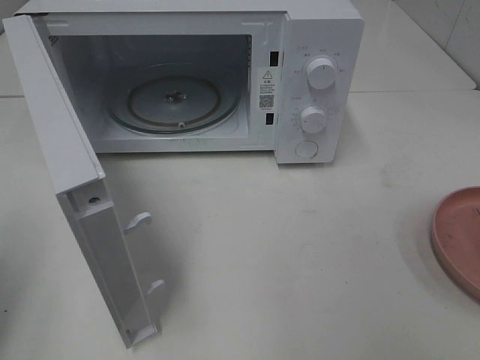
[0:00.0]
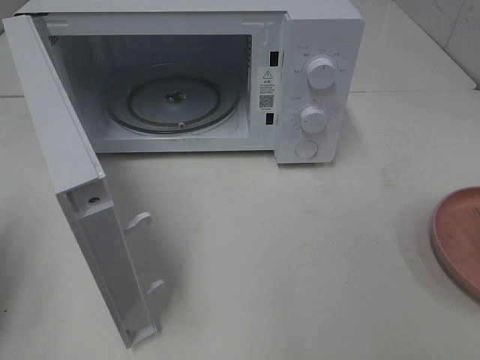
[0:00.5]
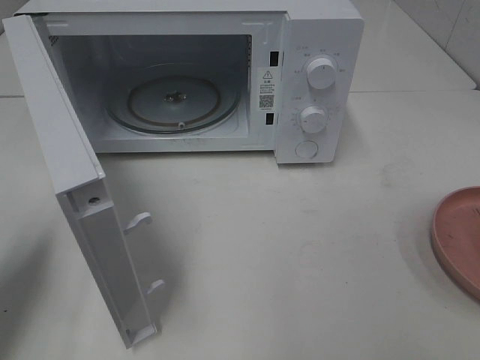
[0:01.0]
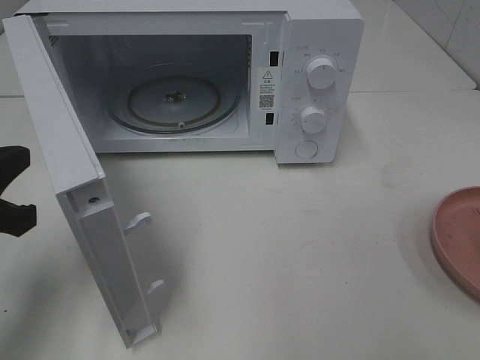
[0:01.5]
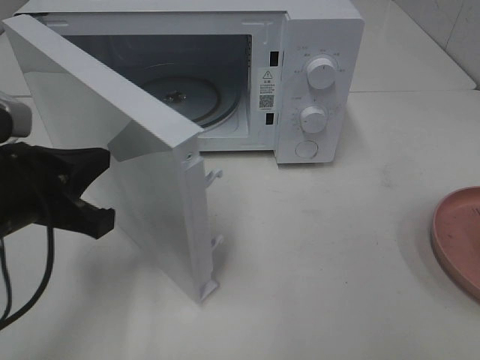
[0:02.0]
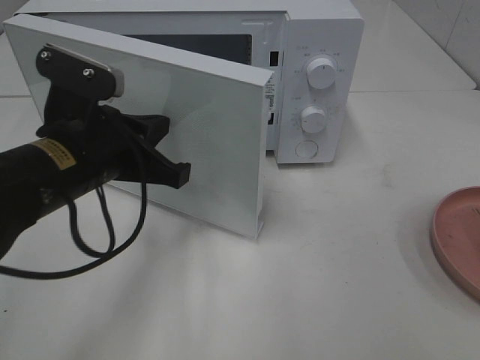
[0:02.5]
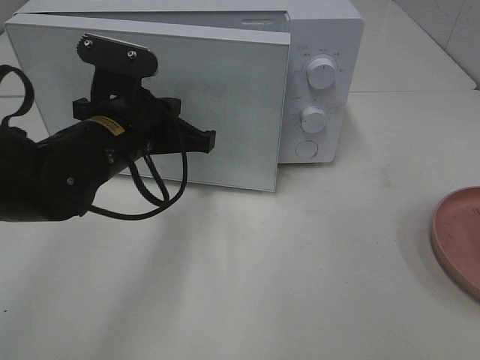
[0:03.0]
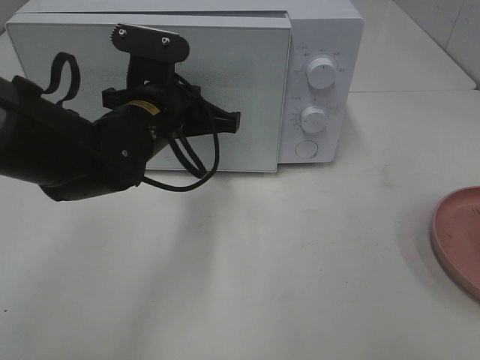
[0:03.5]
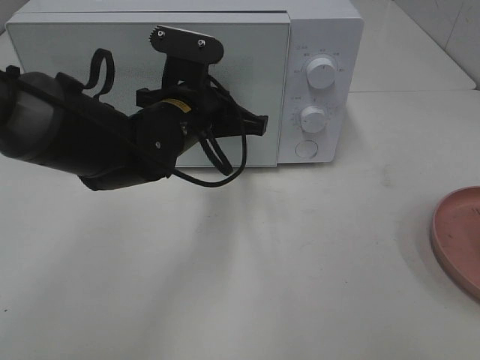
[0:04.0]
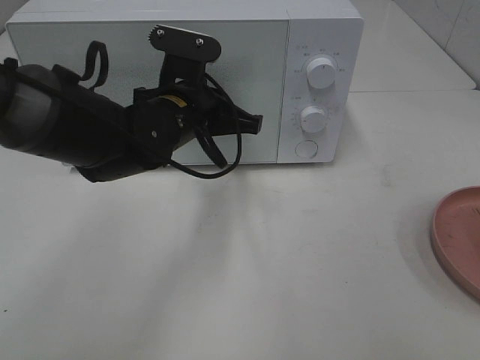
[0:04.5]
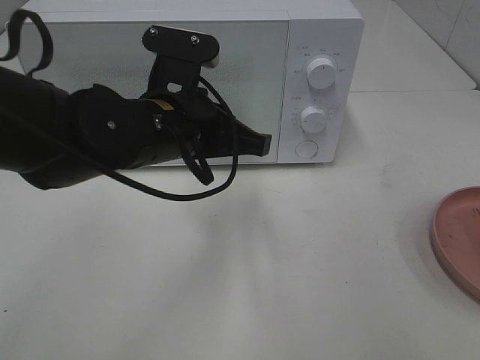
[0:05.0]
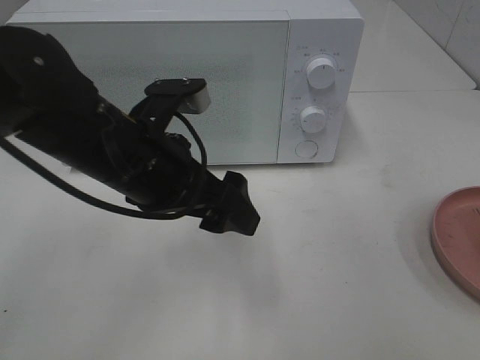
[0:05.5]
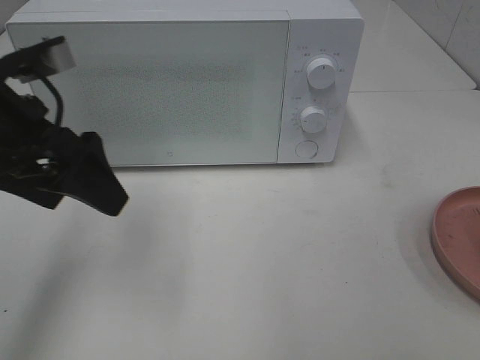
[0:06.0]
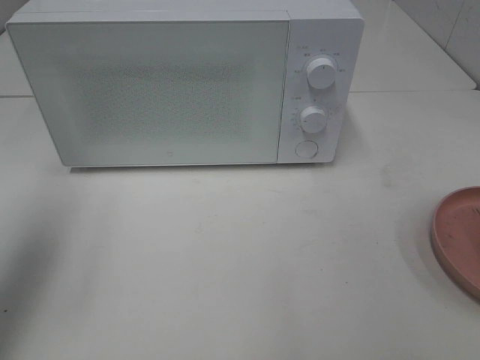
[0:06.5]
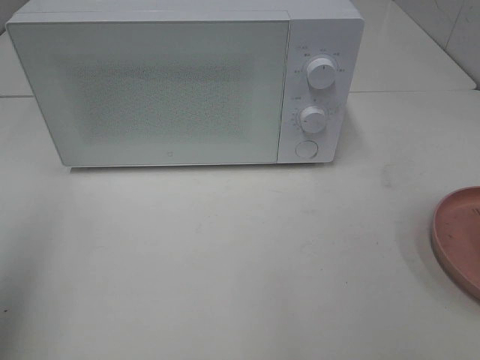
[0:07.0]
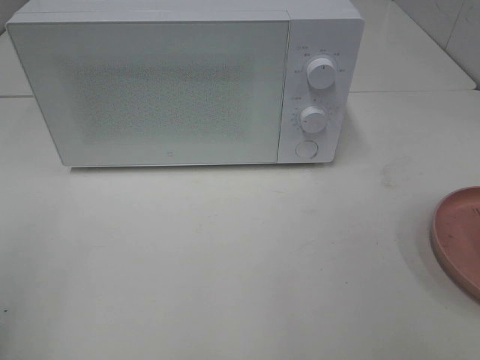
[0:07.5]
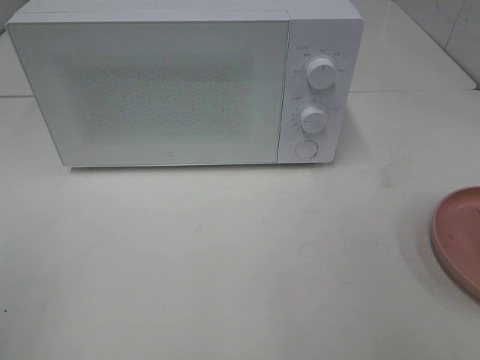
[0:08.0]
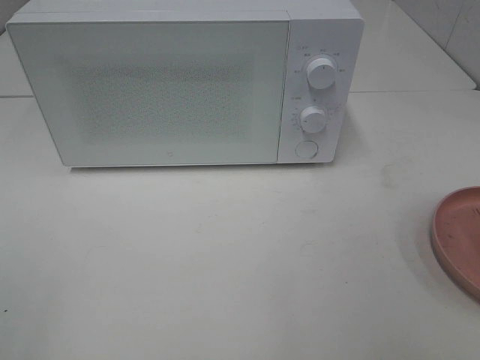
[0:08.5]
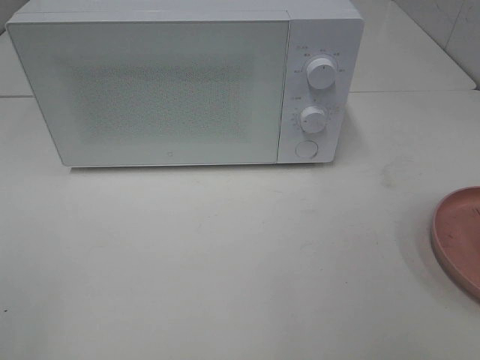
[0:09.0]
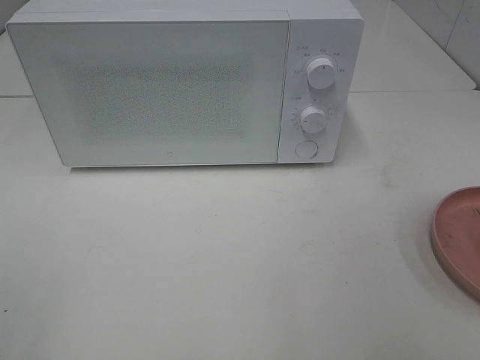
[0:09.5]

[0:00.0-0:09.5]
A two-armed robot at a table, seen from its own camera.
Task of the whole recording: Heat the burger.
Step, 0.0 to 5.0 s: Left hand: close the microwave door.
0.0 to 2.0 s: The left gripper goes roughly 15 cm to the right, forward and downward.
2.0 to 4.0 s: The left gripper travels to the right and forward by approximately 20 cm.
4.0 to 5.5 s: The left gripper moves backward, approximately 10 cm, and opens up.
5.5 to 7.5 s: The left gripper goes roughly 30 cm to the left and backward.

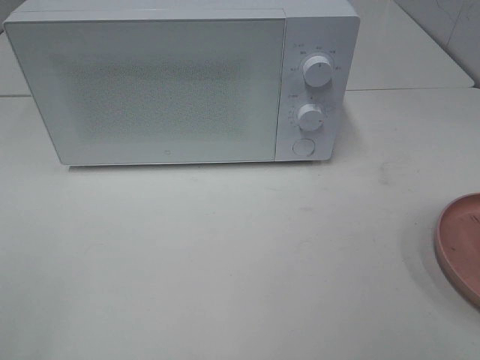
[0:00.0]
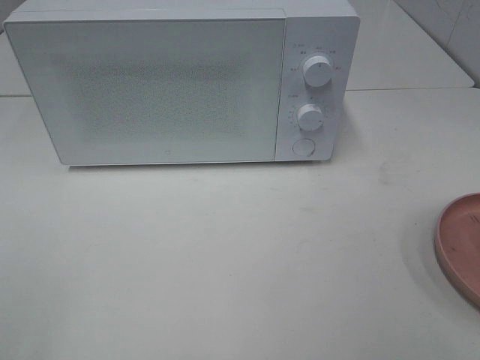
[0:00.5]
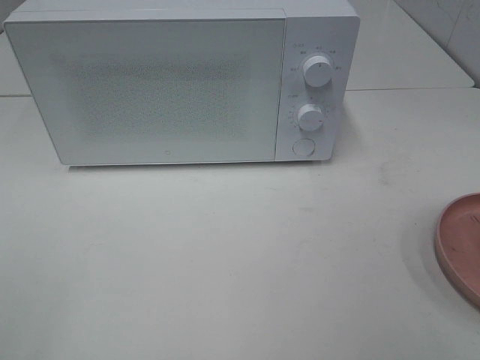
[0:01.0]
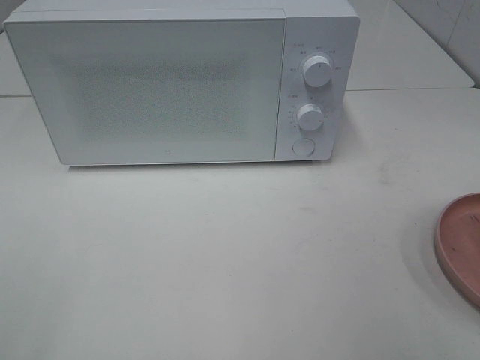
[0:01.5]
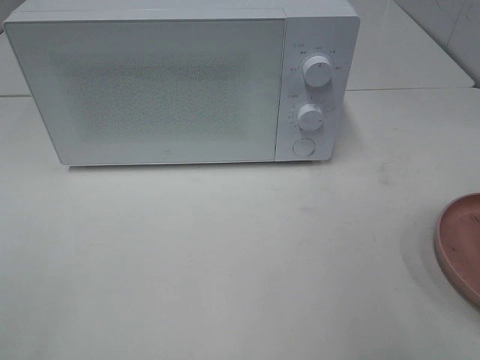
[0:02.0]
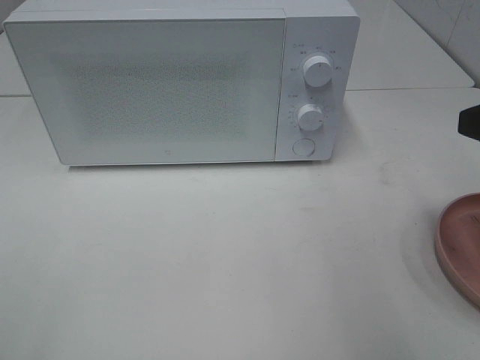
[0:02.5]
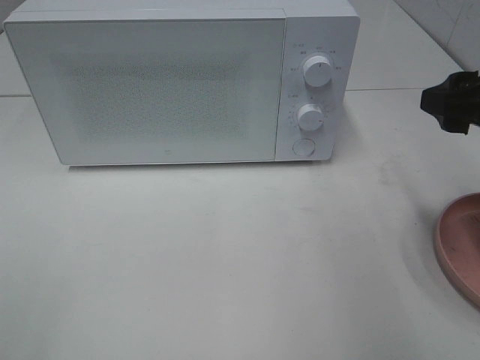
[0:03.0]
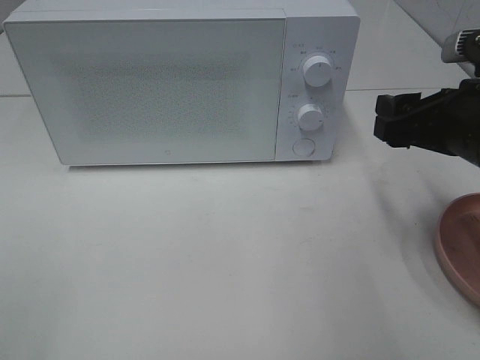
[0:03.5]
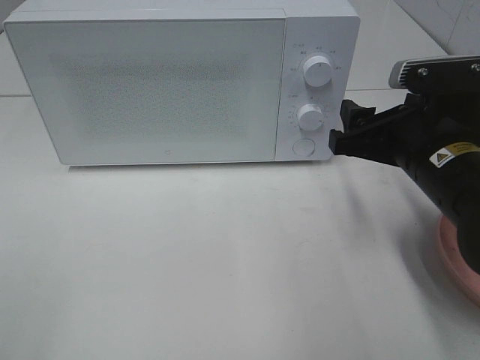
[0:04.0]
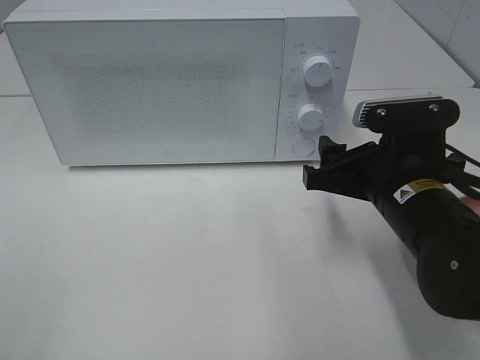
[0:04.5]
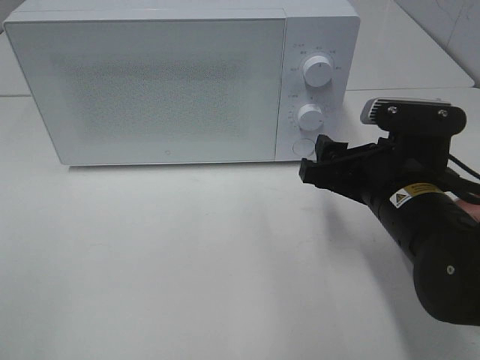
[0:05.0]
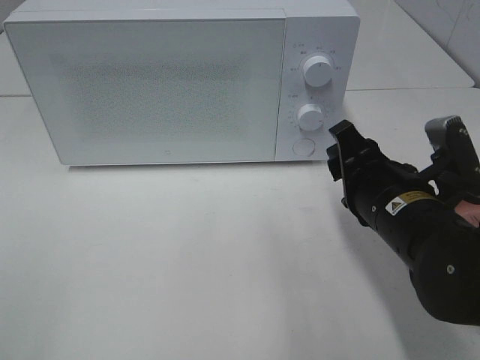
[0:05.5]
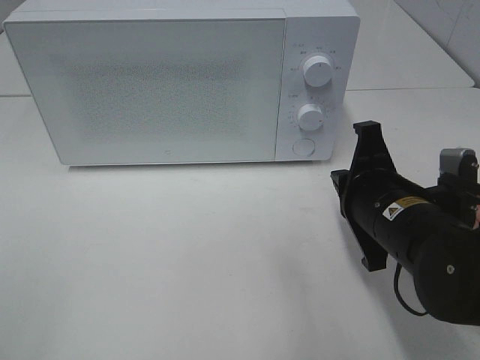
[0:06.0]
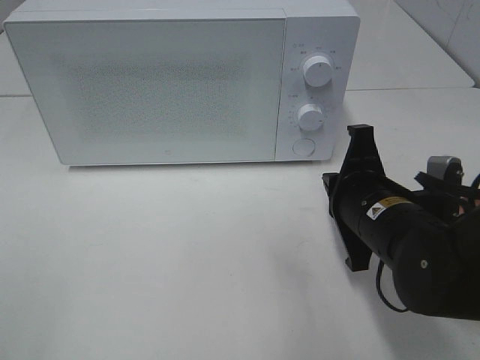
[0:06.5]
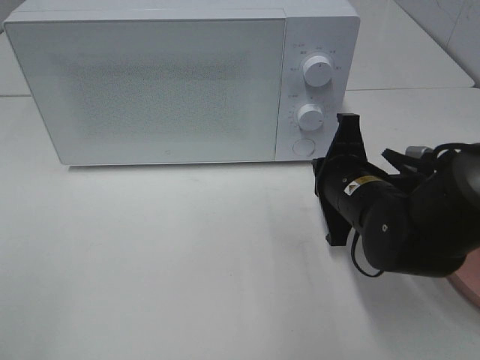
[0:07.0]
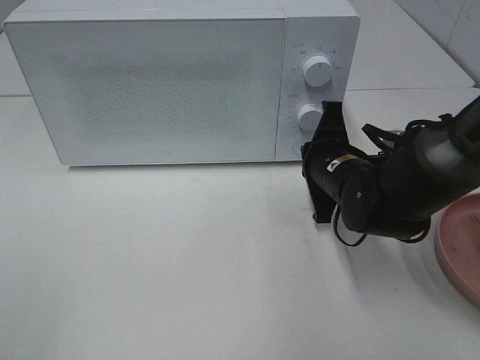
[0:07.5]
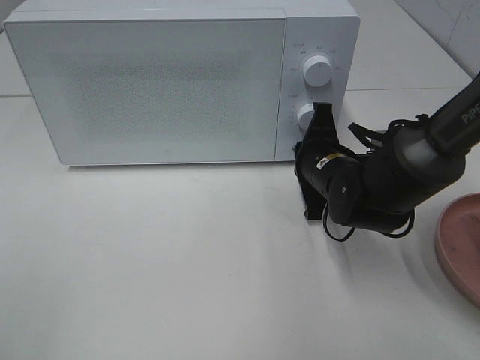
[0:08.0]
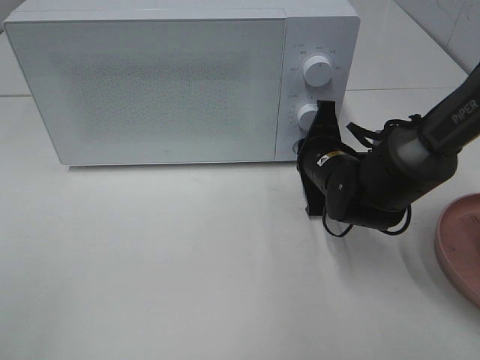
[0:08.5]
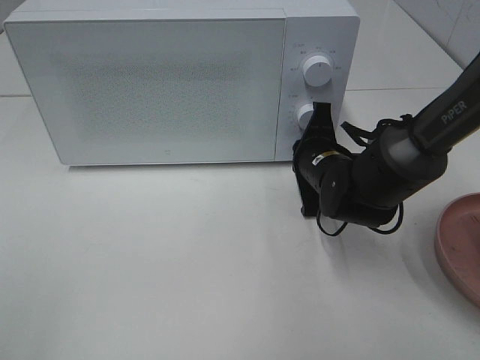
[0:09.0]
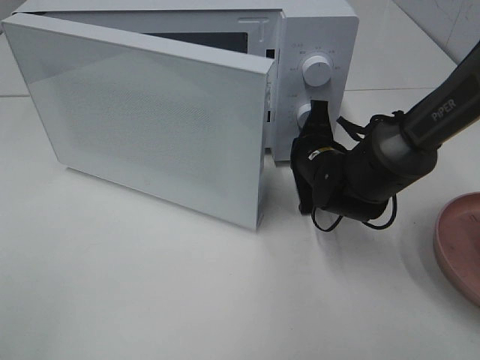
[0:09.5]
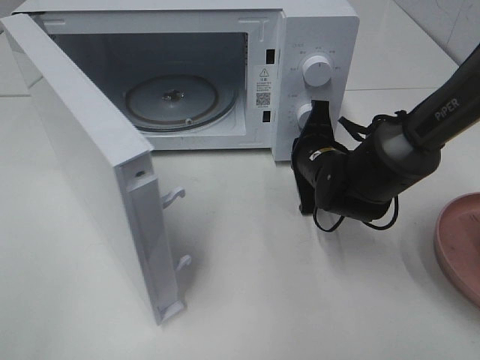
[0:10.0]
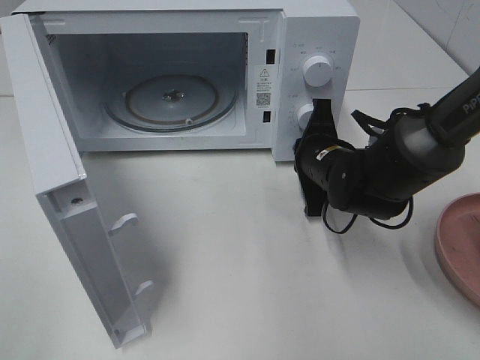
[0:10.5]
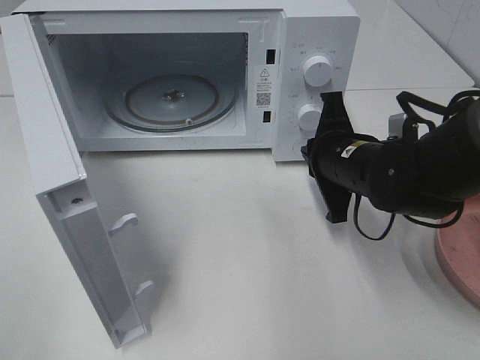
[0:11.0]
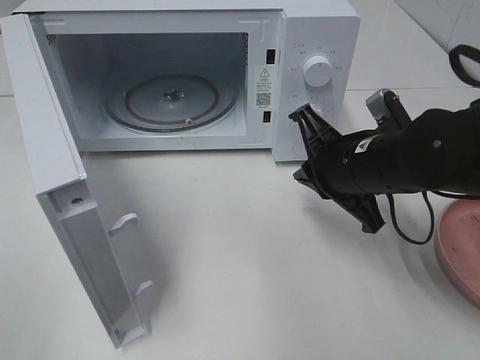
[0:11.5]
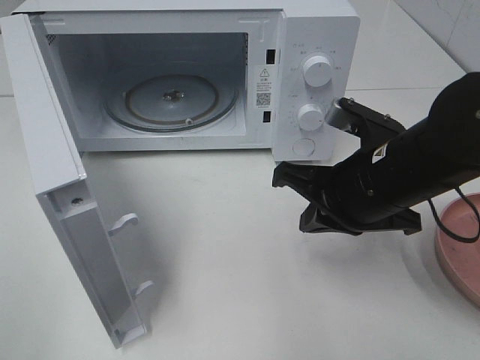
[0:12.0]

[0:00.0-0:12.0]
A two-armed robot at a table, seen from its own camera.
Task of the whole recording: Heat the burger.
Step, 0.0 to 10.5 s: Right hand: press the switch.
2.0 to 4.0 s: The right gripper goes about 20 cm forward, downward and to the left.
4.0 to 6.0 s: The right gripper changes place by about 5 cm, and closes up.
6.0 to 8.0 s: The right gripper goes roughly 10 cm forward.
10.0 to 12.0 s: The right gripper travels backward and upward by about 15 cm.

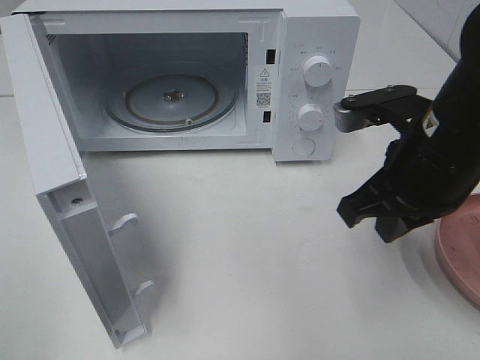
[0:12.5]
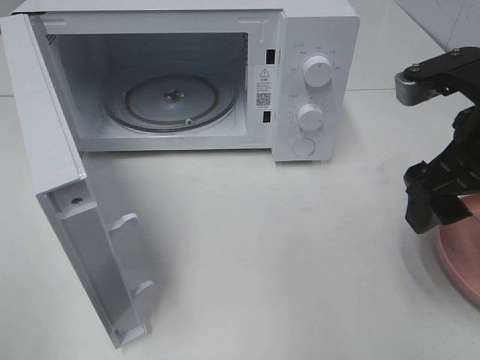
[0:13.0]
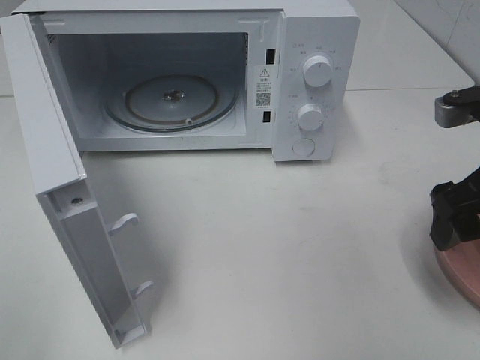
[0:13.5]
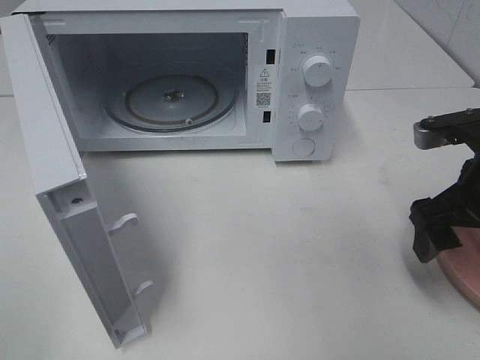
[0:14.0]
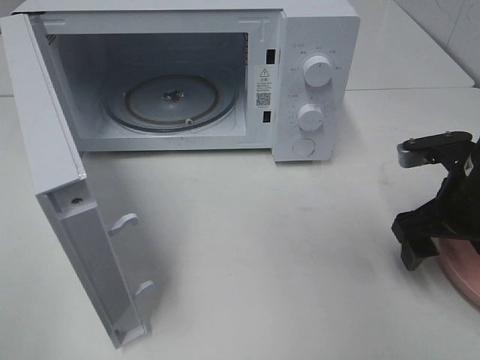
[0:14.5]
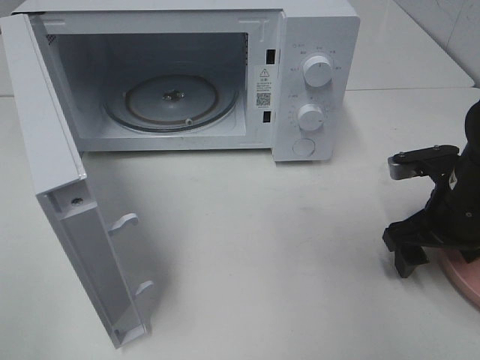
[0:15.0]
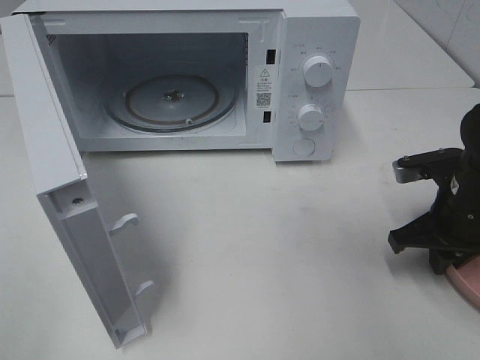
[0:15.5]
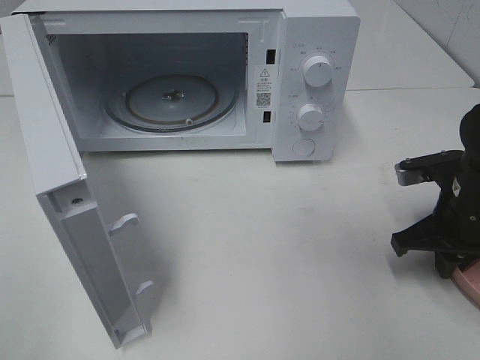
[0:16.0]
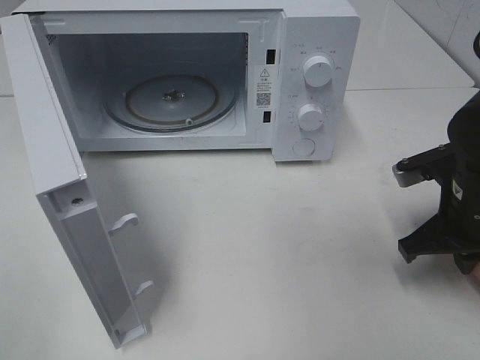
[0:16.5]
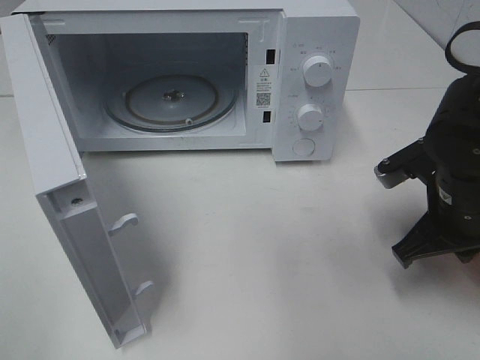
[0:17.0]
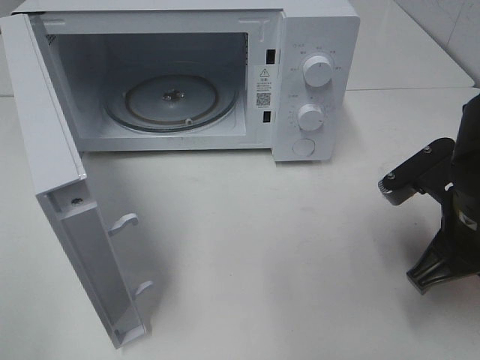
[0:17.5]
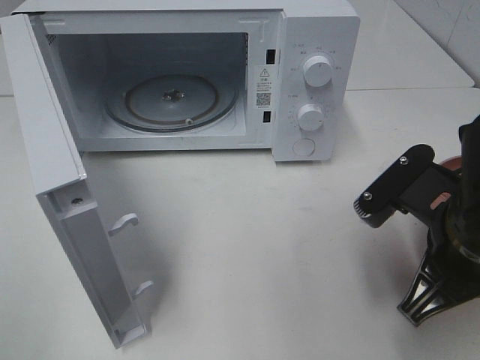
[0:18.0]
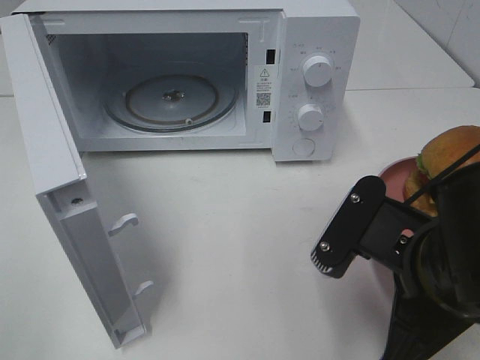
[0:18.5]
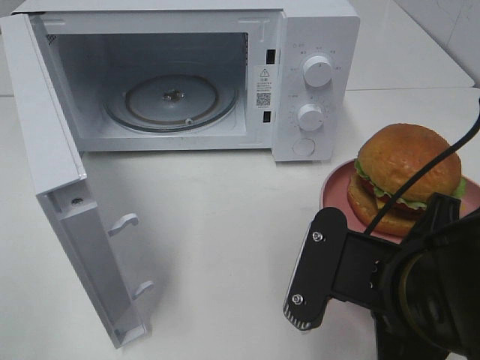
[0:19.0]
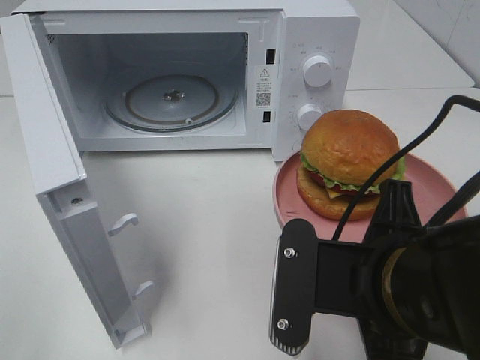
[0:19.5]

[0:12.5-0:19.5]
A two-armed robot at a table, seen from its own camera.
Task of the whole recording: Heat the burger.
Step, 12.5 to 16.5 s: Right hand: grab the plate with the hamburger.
12.5 to 14.5 s: The right gripper moves to the right and downward, about 10 cm, and opens its fingers.
14.5 to 16.0 s: The right gripper closes its fingers.
16.0 to 17.5 s: The right gripper shifts about 5 cm backward.
17.5 to 19.5 s: The right gripper heads to the left and backward, covering some 15 cm.
